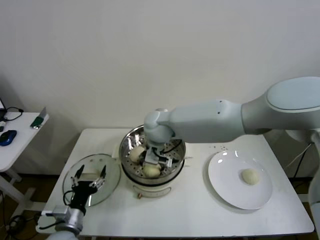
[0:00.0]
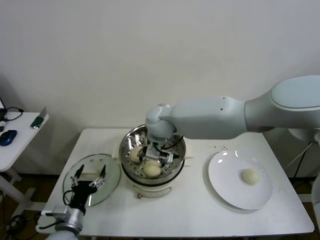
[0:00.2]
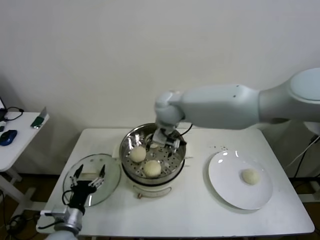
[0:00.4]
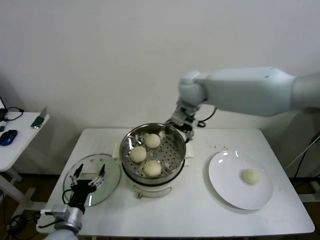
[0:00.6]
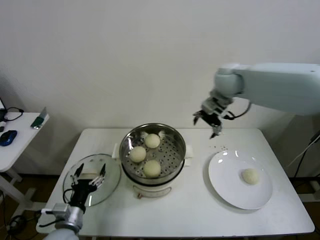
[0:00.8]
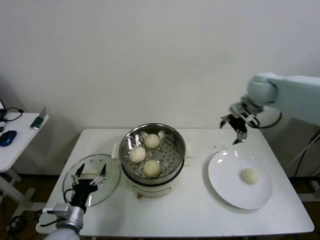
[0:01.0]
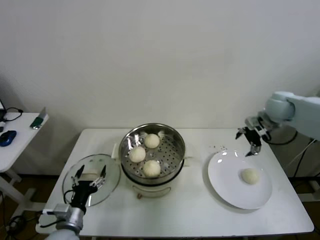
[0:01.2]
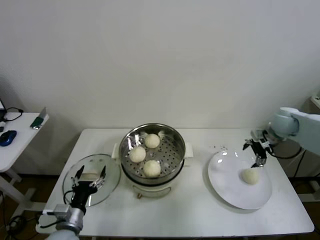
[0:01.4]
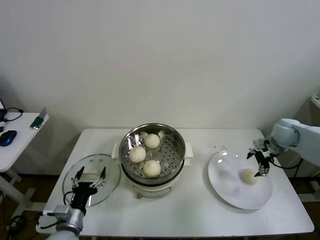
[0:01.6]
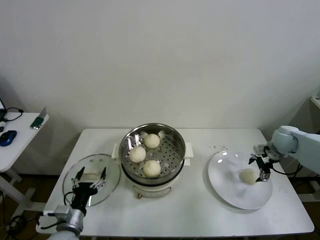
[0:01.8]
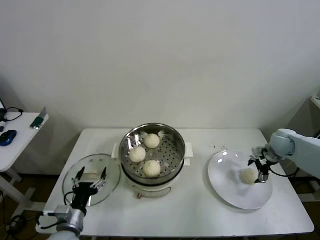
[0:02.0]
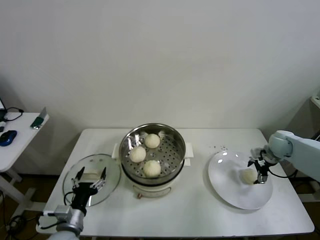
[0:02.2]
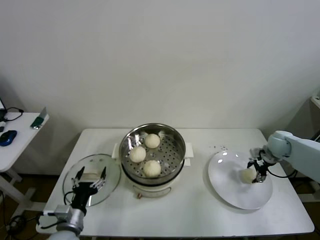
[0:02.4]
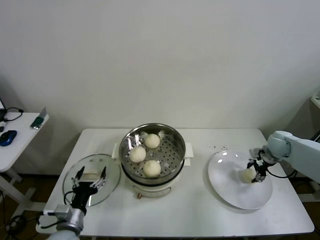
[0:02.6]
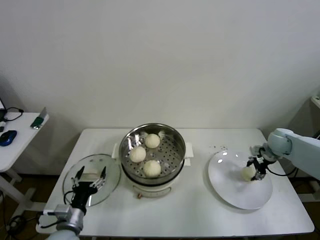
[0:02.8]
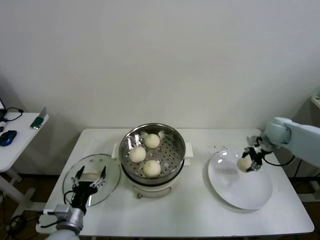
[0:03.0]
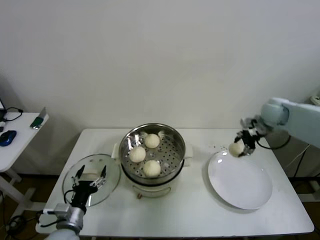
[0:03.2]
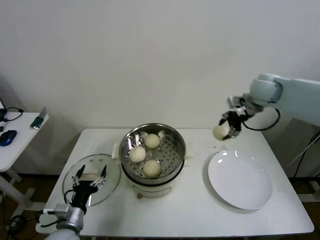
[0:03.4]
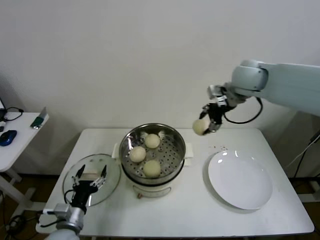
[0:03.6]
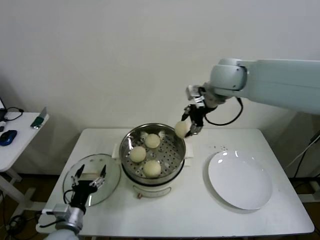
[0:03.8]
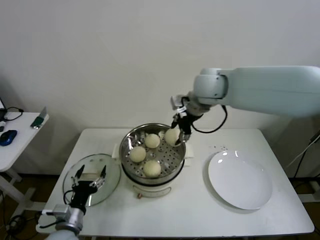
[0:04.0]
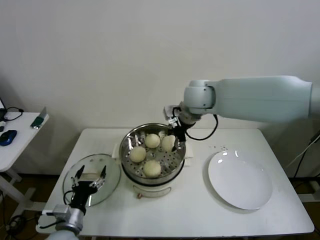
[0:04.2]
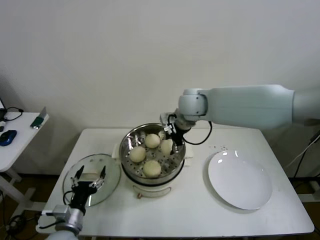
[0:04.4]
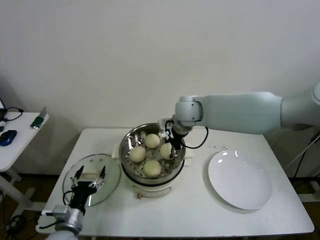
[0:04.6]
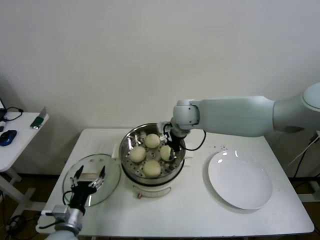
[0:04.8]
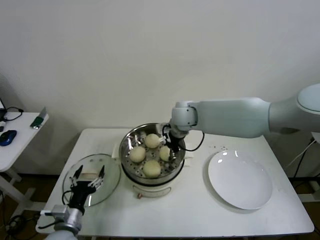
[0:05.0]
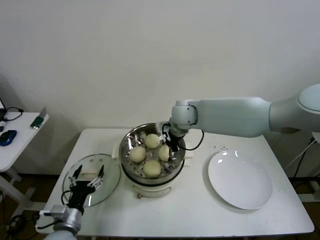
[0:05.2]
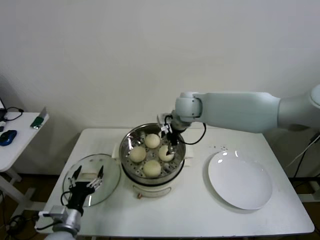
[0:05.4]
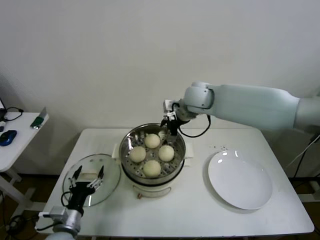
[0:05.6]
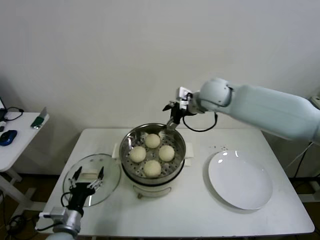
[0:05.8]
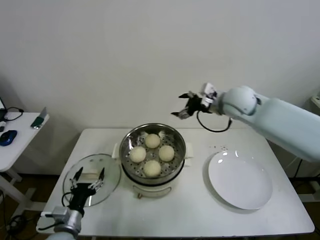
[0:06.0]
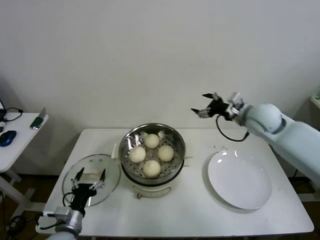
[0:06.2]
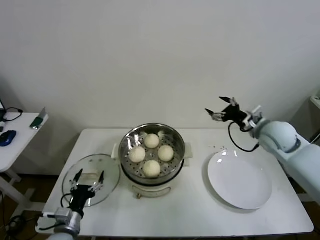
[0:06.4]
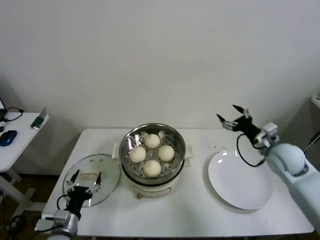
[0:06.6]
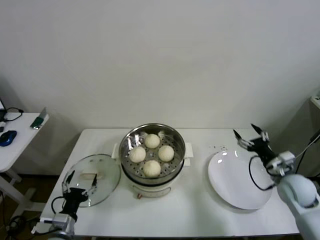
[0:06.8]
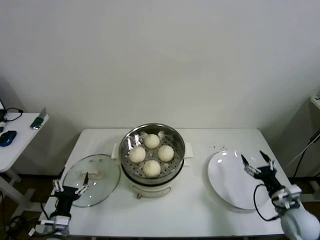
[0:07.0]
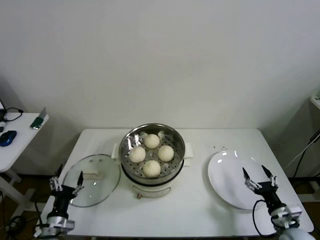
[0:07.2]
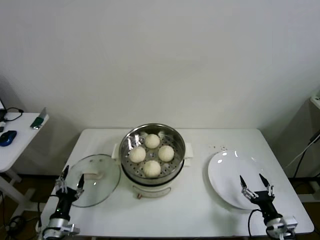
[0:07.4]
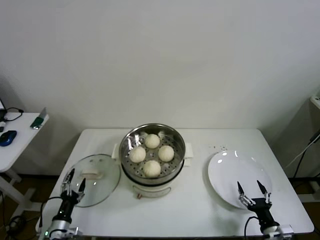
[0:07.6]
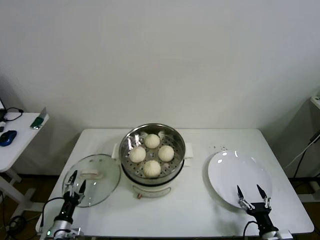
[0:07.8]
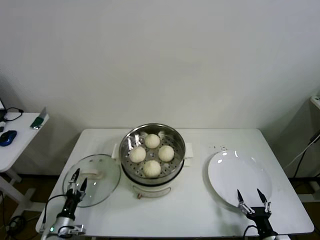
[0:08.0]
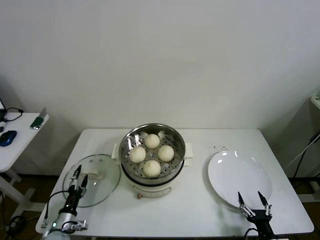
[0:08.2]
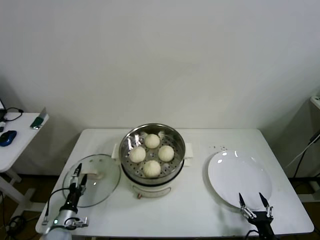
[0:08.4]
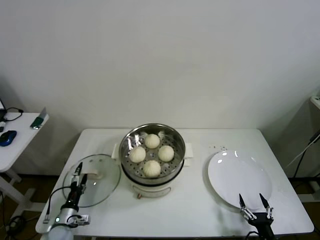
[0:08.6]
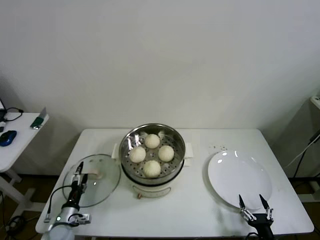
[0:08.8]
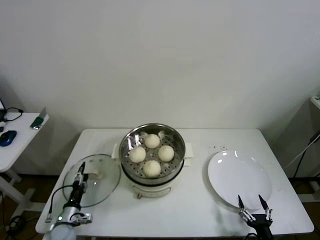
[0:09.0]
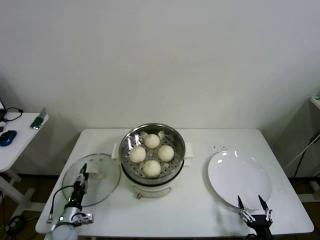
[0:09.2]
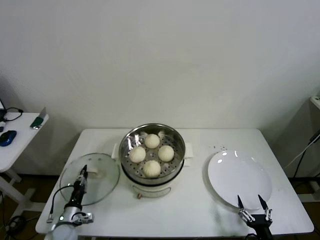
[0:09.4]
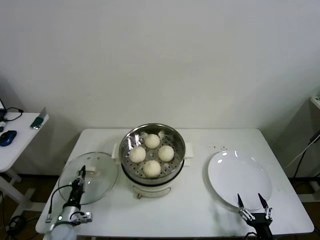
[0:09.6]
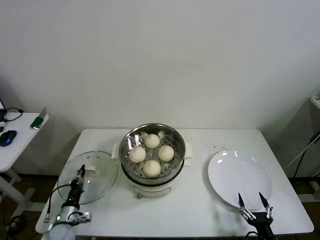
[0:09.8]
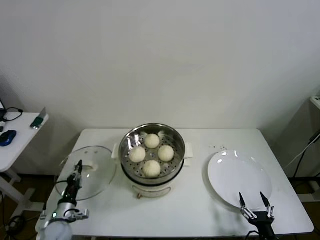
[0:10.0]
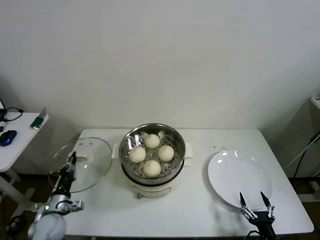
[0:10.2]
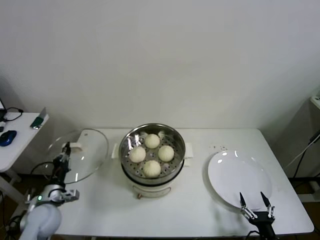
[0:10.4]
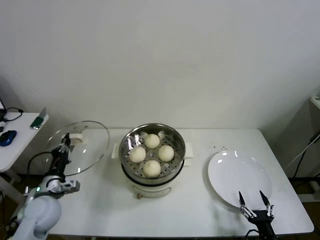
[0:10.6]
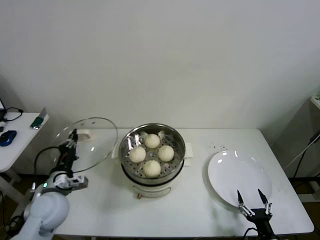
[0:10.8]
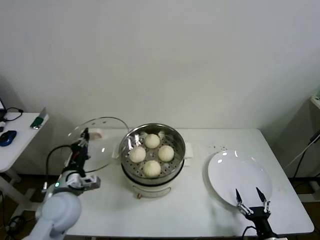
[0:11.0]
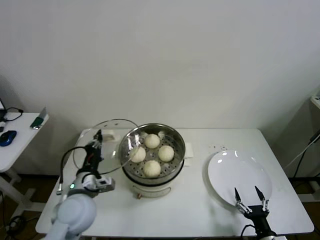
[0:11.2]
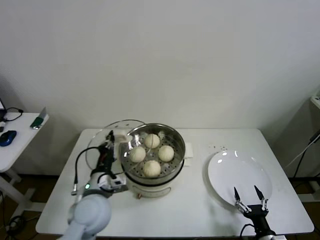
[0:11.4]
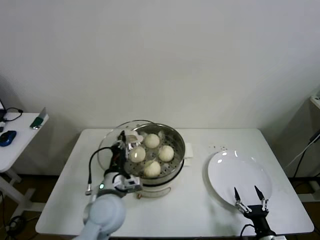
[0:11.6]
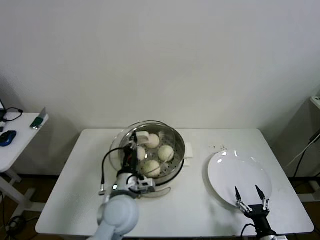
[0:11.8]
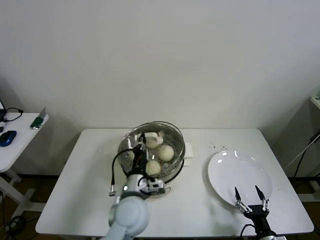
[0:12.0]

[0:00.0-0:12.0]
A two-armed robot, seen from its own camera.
Step, 0:00.4 to 0:02.6: Grasp the baozi in the plate with right gripper.
Step, 0:02.8 to 0:05.2: Place the baozi on the steamer with right gripper.
Step, 0:05.4 to 0:09.4: Grasp the pot lid with left gripper.
0:00.0 to 0:01.6: The right gripper is displaced to the right by about 50 cm.
0:01.6 to 0:03.0: The right gripper closes its fingers.
0:03.0 to 0:04.4: The right gripper is displaced to the left by about 35 cm.
0:04.4 to 0:06.0: The right gripper moves to the right, approximately 15 cm, and opens up.
0:06.0 to 0:07.6: The left gripper goes approximately 15 cm downward and to the left, while the right gripper is displaced downward, backward and to the right by about 50 cm.
0:07.6 to 0:09.0: The right gripper goes approximately 5 cm backward, while the left gripper moves forward, roughly 5 cm.
0:09.0 to 0:10.4: The left gripper shifts roughly 10 cm upward, and closes up.
0:10.4 to 0:12.0: The left gripper moves to the right, some 30 cm.

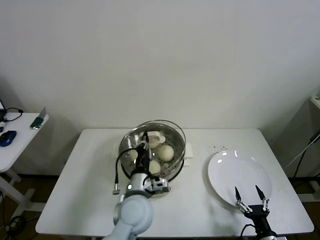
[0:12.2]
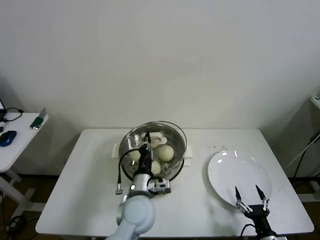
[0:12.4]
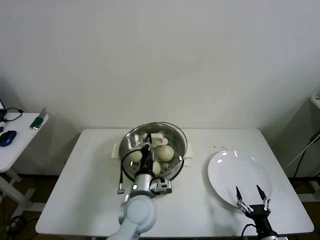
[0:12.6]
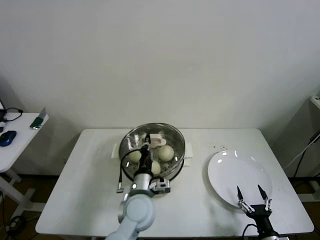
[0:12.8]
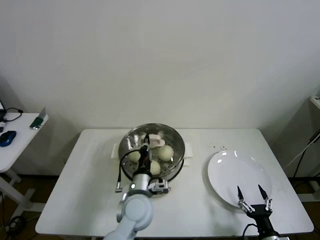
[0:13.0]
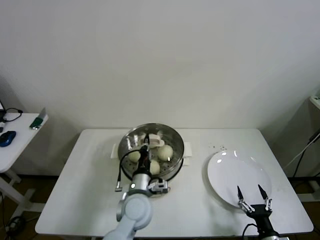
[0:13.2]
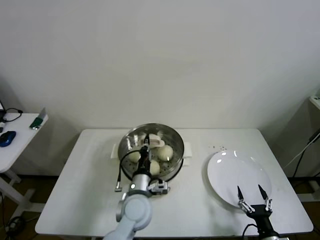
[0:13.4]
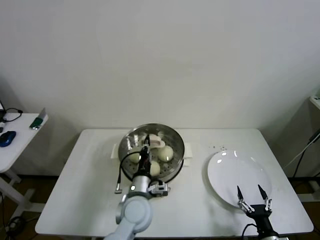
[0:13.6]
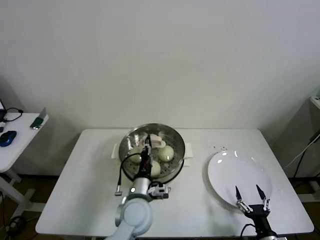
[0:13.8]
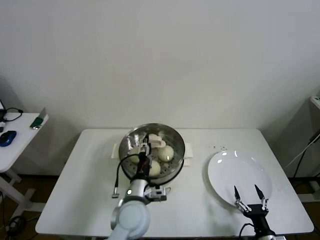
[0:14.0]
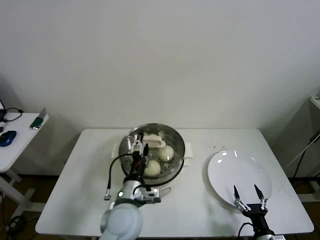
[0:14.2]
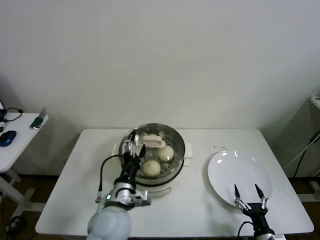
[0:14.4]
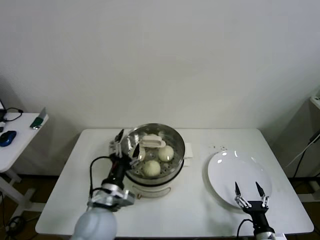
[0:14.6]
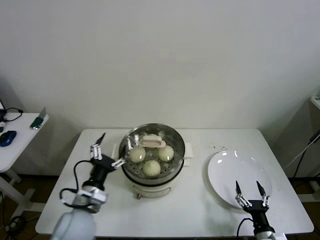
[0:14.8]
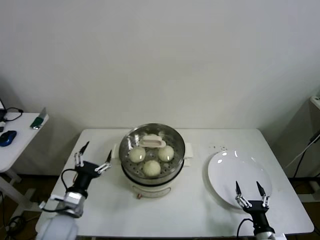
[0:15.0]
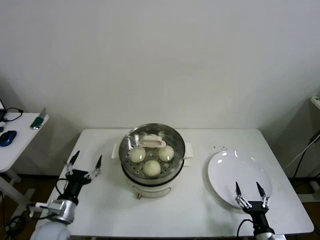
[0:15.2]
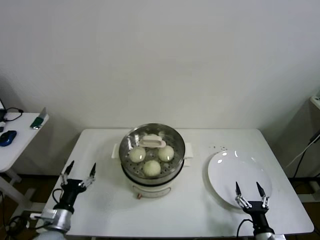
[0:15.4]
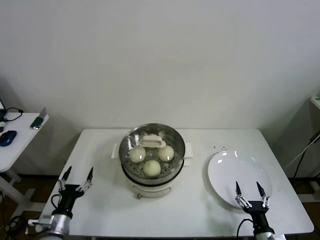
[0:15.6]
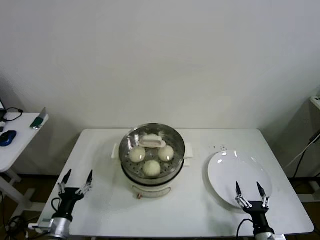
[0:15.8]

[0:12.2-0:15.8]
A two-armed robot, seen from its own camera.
0:12.2 to 0:14.0: The left gripper opens its fingers.
0:14.0 to 0:15.8: The left gripper travels to the left and downward by about 30 cm, and opens up.

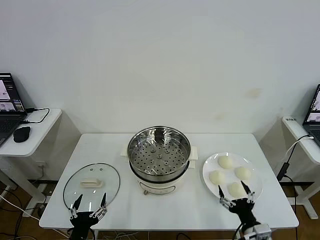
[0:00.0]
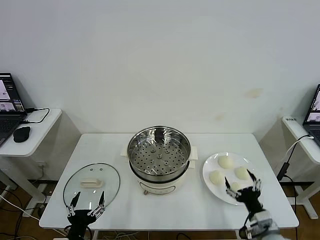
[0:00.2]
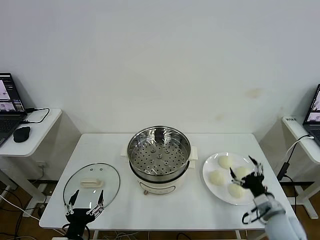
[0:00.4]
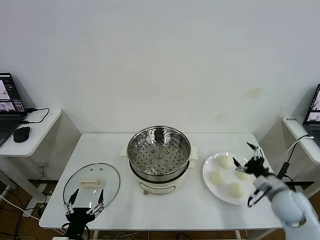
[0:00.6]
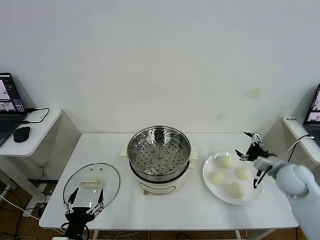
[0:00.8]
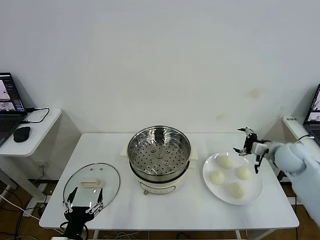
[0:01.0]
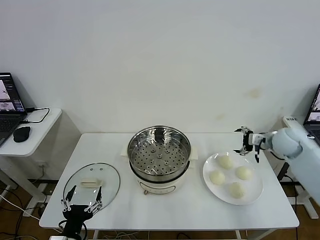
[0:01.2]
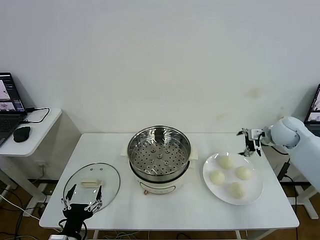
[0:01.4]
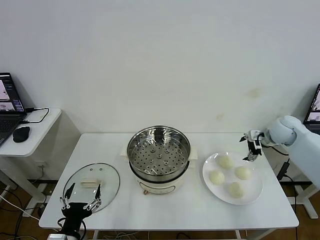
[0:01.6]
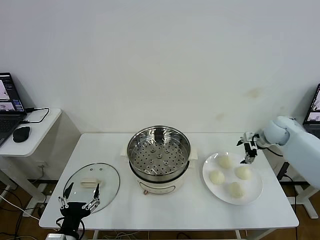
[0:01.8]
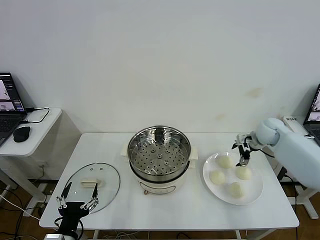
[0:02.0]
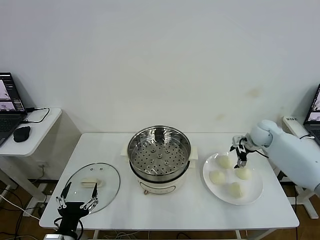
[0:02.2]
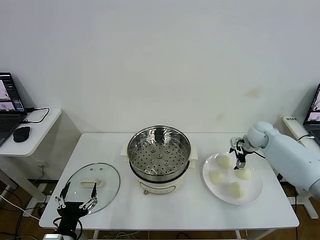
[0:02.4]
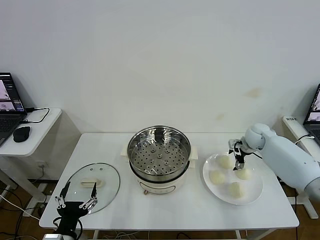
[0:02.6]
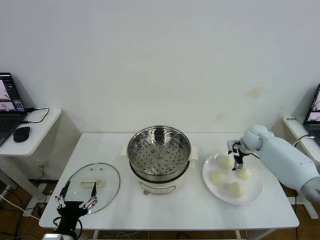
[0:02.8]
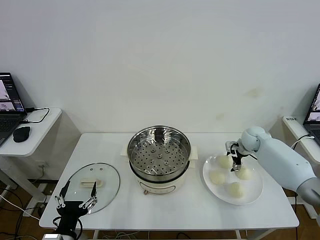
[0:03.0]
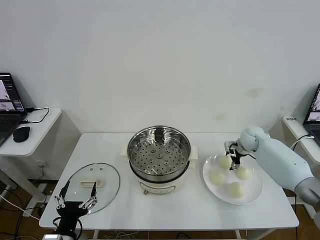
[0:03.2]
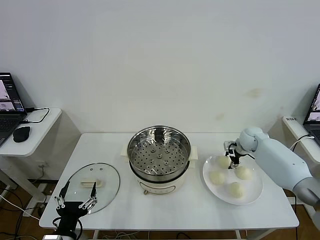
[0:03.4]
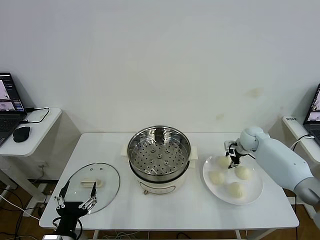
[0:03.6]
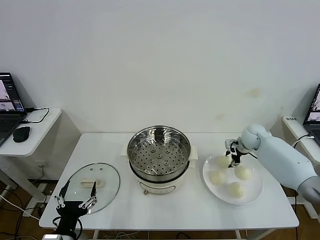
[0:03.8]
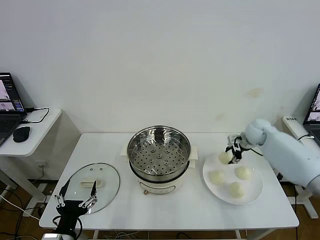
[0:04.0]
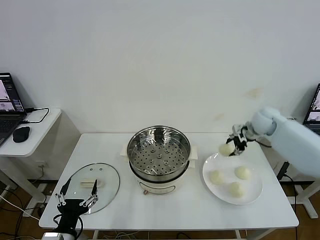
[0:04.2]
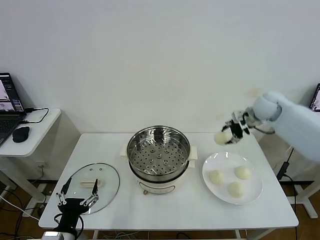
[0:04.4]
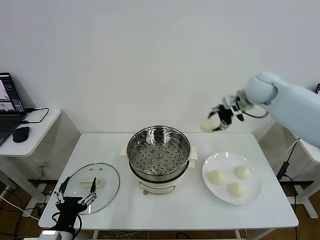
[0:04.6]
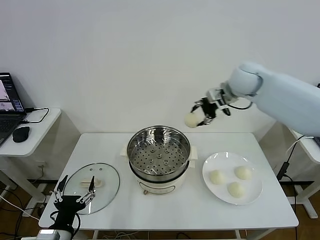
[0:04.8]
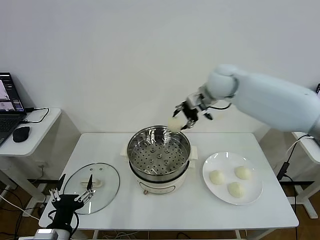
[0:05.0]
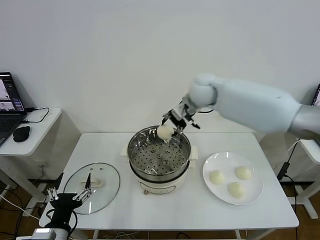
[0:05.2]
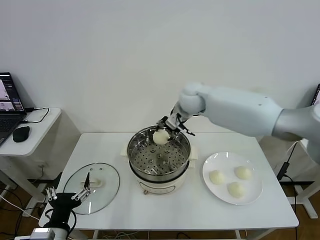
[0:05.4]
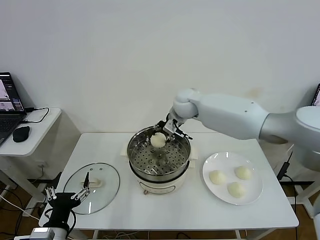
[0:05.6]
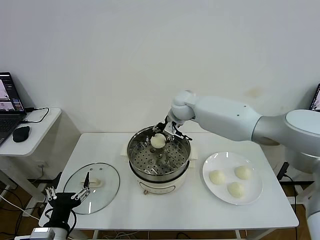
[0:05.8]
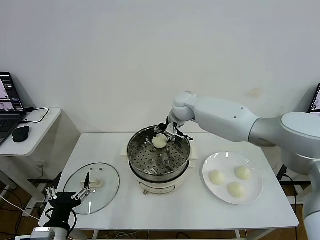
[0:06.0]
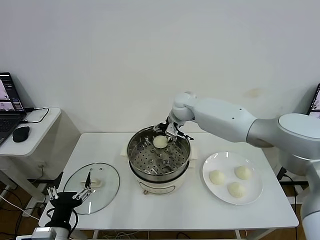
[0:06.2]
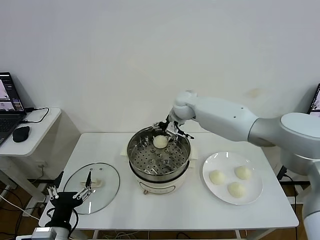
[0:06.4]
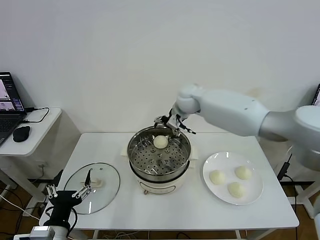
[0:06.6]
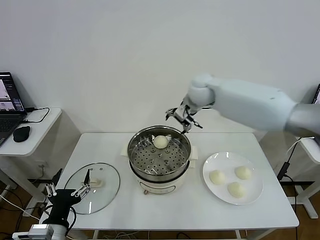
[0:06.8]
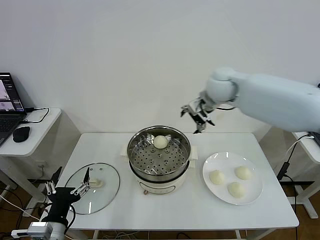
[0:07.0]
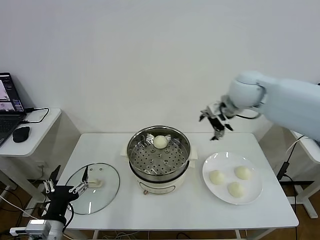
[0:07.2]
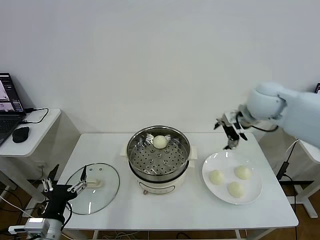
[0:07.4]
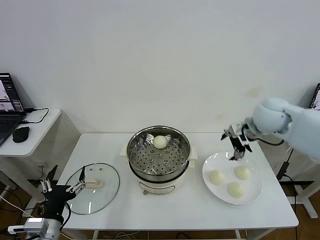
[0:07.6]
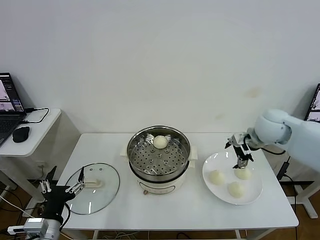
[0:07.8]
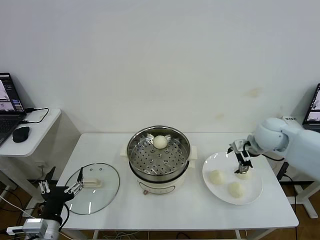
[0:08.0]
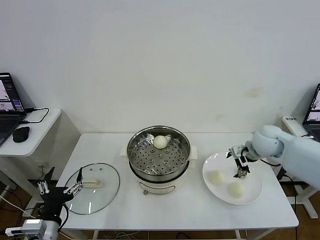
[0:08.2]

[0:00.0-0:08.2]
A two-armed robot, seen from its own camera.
Step, 0:00.0 to 0:03.6: Grasp the baozi in the plate with right gripper.
Step, 0:03.8 to 0:06.4: Place the baozi on the steamer with right gripper.
0:01.6 to 0:03.2: The right gripper heads downward and to the left, covering some 10 cm, and closes.
0:03.2 to 0:05.0: The right gripper is displaced upward and to the left by approximately 30 cm.
0:05.0 to 0:06.6: The right gripper opens its fingers.
0:06.6 to 0:08.2: The right gripper shifts some 30 cm to the right, backward and downward.
